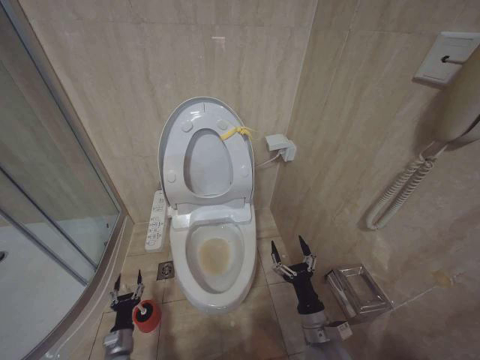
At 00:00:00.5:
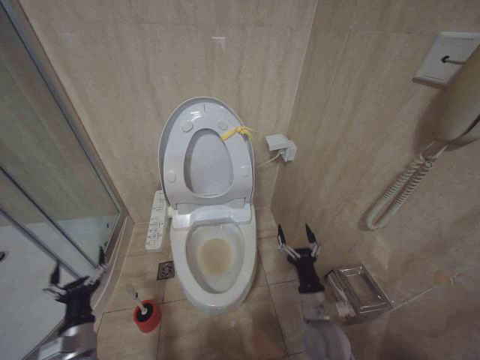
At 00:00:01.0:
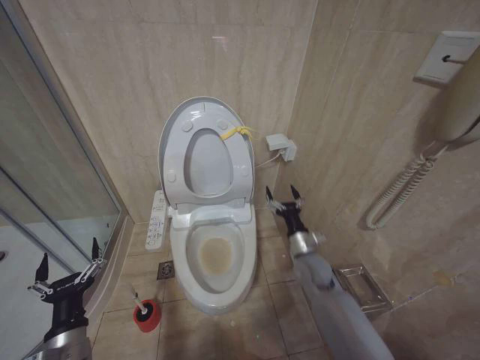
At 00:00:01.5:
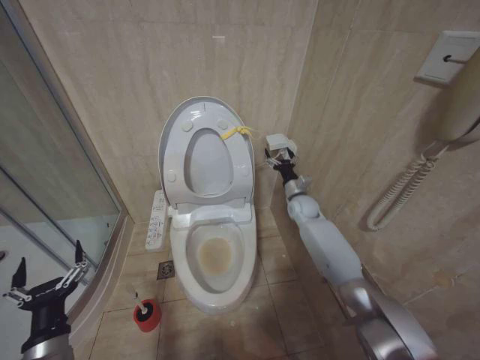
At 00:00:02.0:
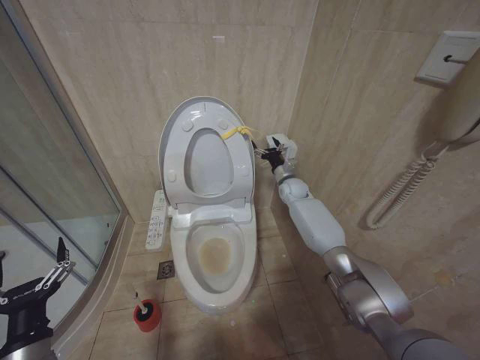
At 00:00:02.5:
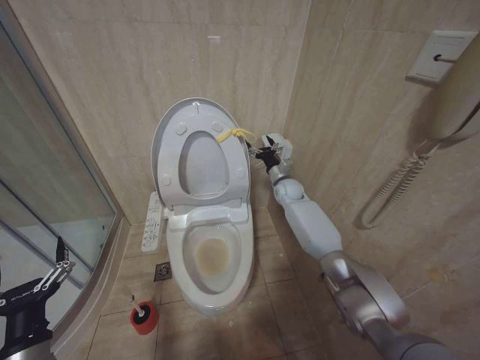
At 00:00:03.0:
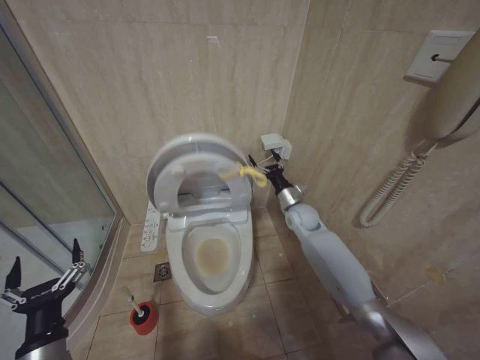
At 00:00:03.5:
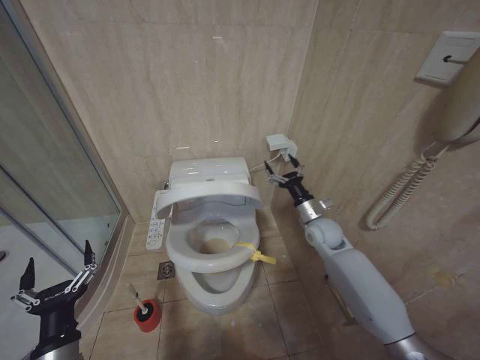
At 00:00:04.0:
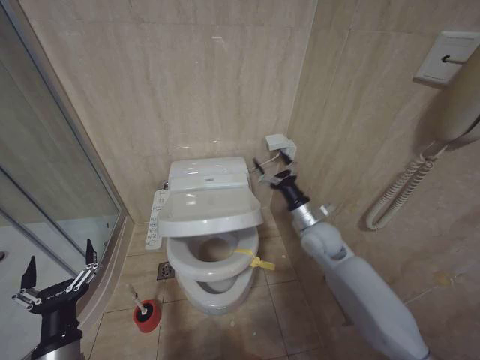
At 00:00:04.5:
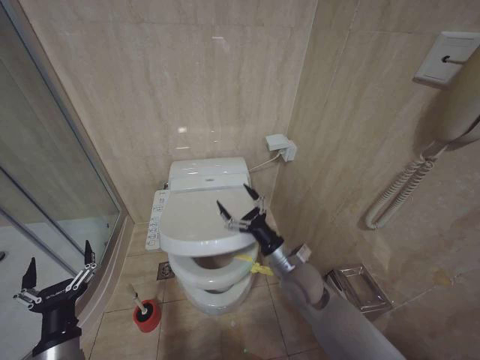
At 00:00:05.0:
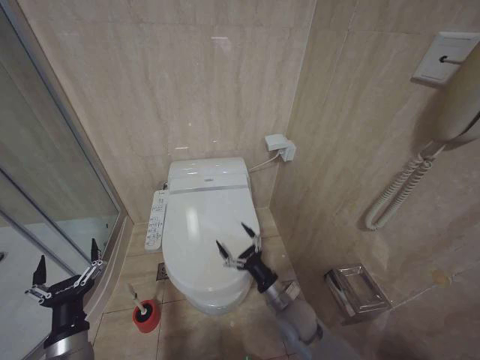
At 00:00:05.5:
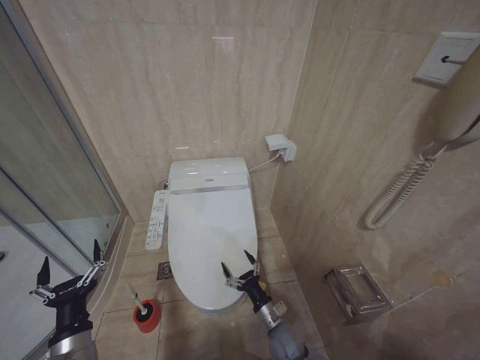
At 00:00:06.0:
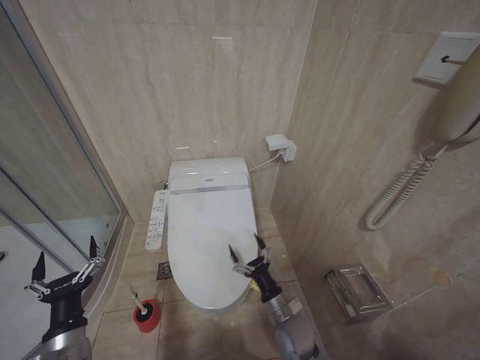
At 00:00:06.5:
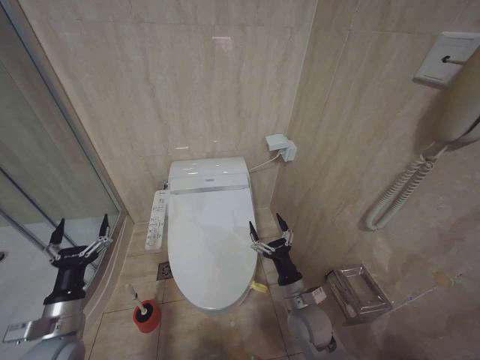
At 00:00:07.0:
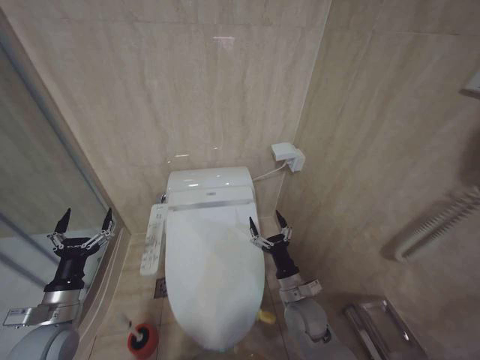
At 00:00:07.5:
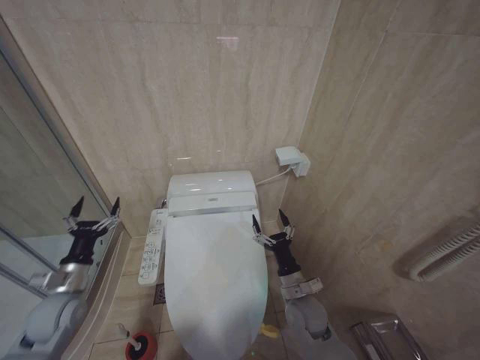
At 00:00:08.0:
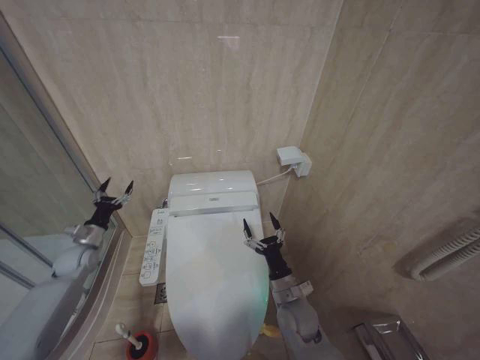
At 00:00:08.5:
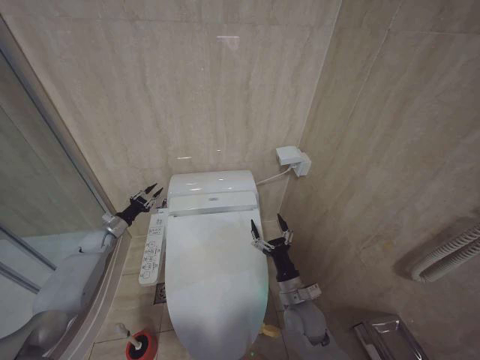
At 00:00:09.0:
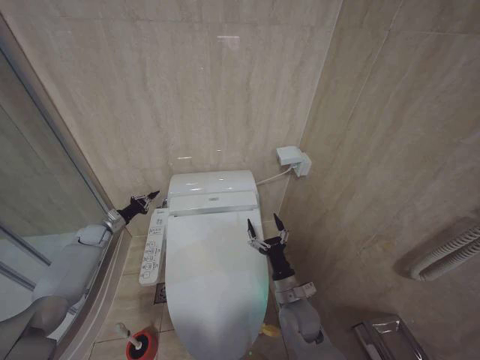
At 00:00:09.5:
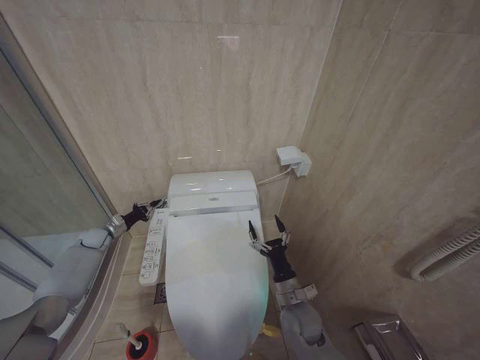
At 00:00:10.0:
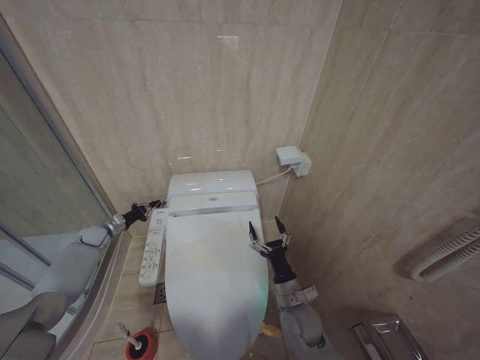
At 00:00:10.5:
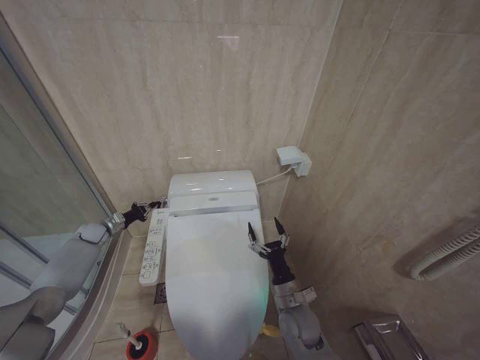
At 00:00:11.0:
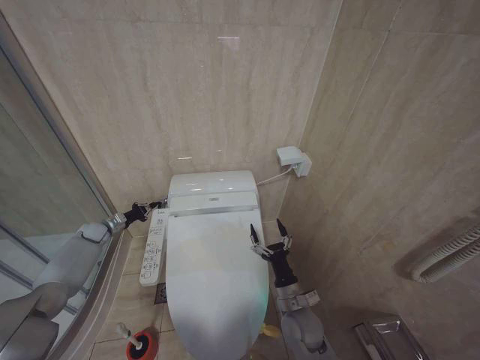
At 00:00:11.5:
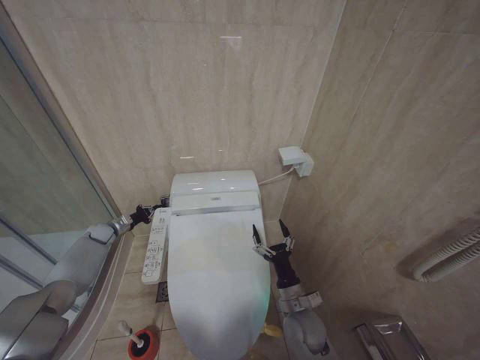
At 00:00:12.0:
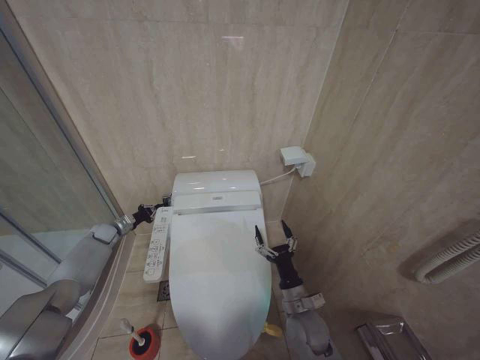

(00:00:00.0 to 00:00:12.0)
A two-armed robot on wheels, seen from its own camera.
Task of the whole recording: Open the toilet lid, clean the toilet bowl with a toilet brush, close the toilet lid, and flush.
00:00:00.0 - 00:00:02.0: The right gripper heads forward and upward, covering approximately 50 cm. Meanwhile the left gripper goes approximately 30 cm upward, and opens up.
00:00:02.0 - 00:00:04.0: The right gripper shifts approximately 20 cm backward.
00:00:04.0 - 00:00:06.0: The right gripper goes some 30 cm downward, backward and to the left.
00:00:06.0 - 00:00:08.0: The left gripper is displaced forward and to the left by approximately 30 cm. The right gripper goes about 5 cm upward.
00:00:08.0 - 00:00:10.0: The left gripper heads forward, covering some 10 cm, and closes.
00:00:10.0 - 00:00:12.0: The grippers make only small movements.

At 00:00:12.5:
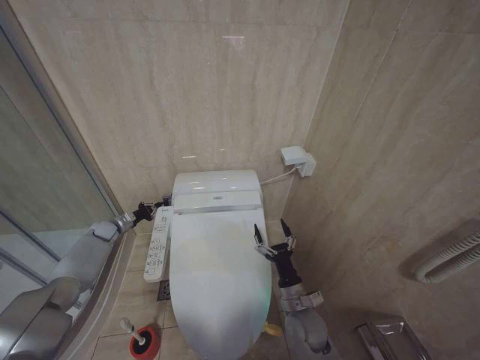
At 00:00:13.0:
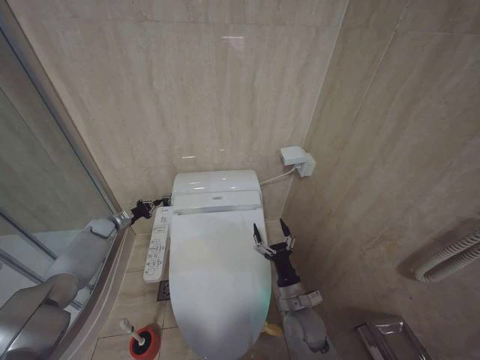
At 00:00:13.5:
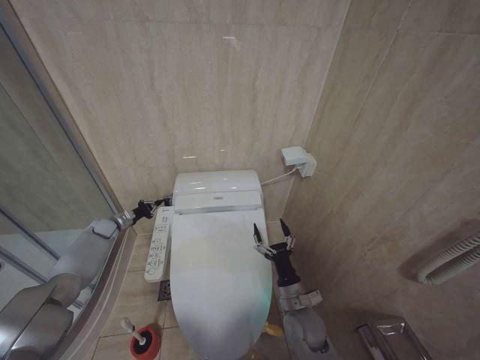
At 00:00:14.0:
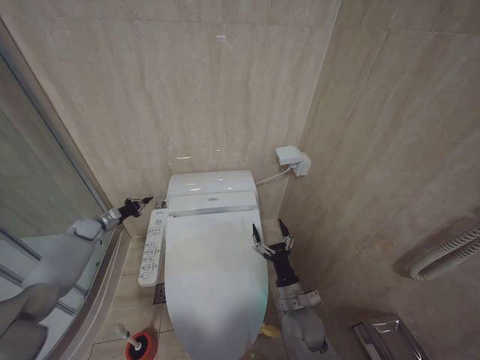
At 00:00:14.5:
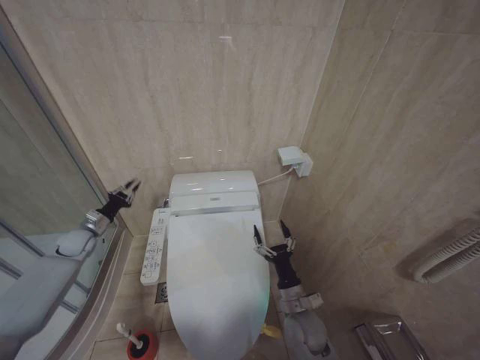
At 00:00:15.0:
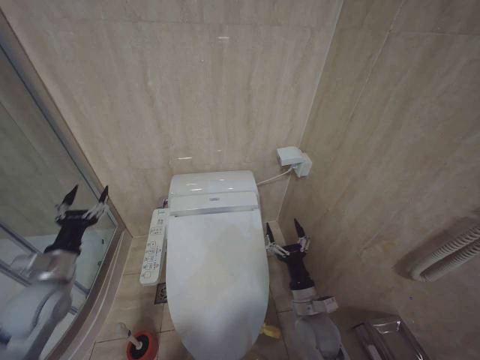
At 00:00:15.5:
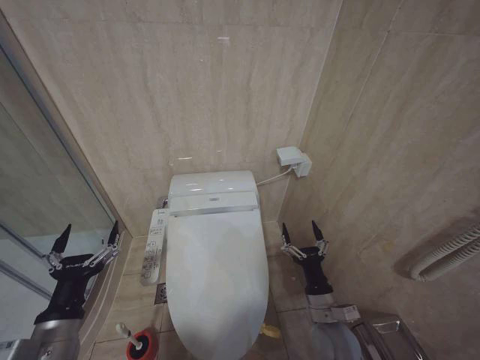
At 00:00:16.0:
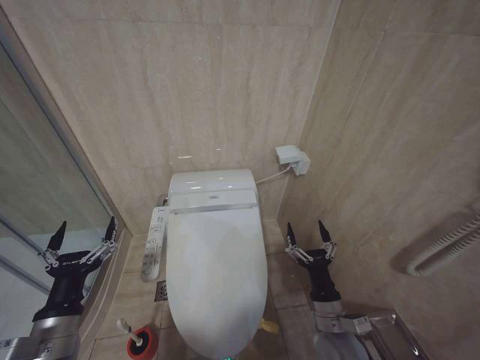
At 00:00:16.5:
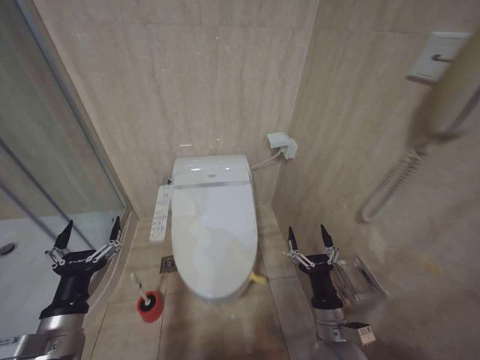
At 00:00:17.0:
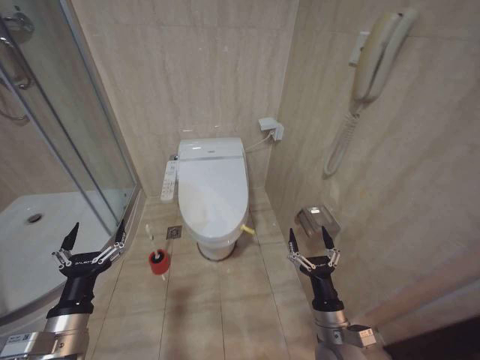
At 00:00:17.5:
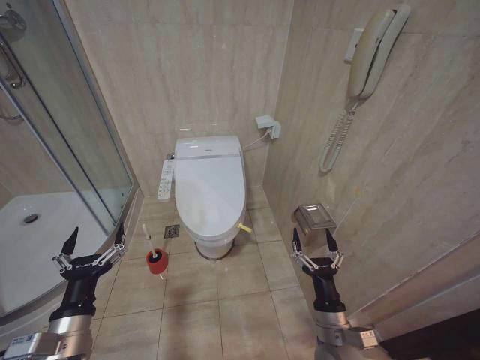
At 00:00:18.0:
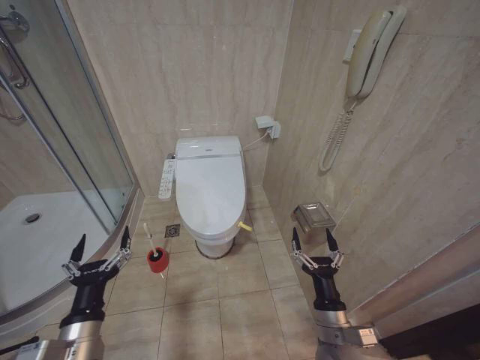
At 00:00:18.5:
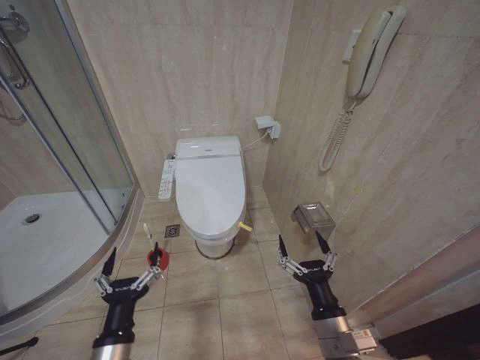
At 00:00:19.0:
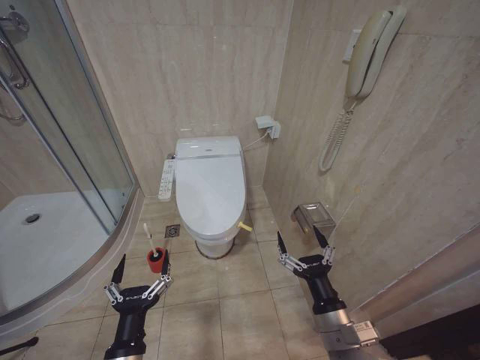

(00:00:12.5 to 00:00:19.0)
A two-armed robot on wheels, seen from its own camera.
Task of the whole recording: Open the toilet lid, clean the toilet bowl with a toilet brush, close the toilet lid, and flush.
00:00:12.5 - 00:00:14.5: The left gripper heads backward, covering roughly 5 cm.
00:00:14.5 - 00:00:17.0: The left gripper shifts roughly 40 cm backward and to the right, and opens its fingers. Meanwhile the right gripper shifts about 10 cm backward.
00:00:17.0 - 00:00:19.0: The right gripper moves upward, roughly 5 cm; the left gripper goes approximately 10 cm to the right and downward.
